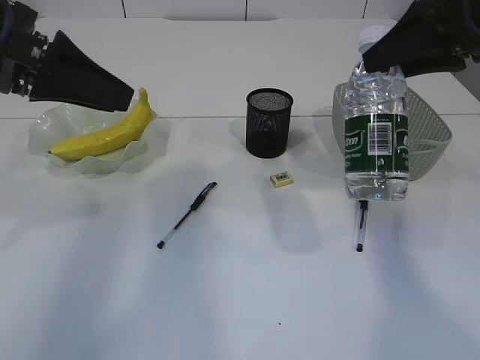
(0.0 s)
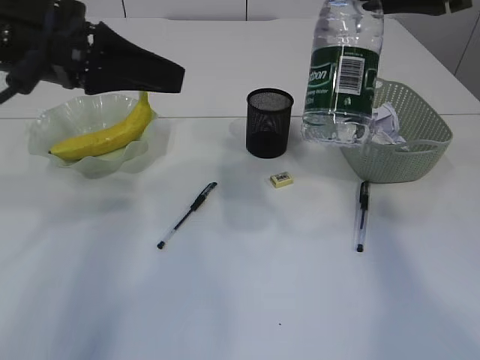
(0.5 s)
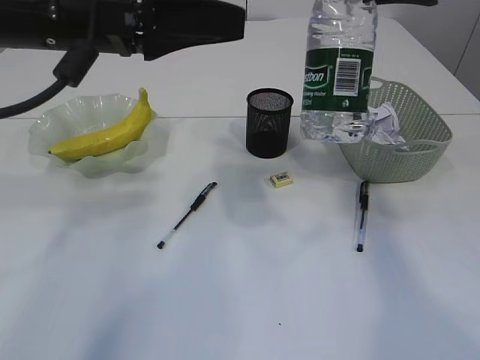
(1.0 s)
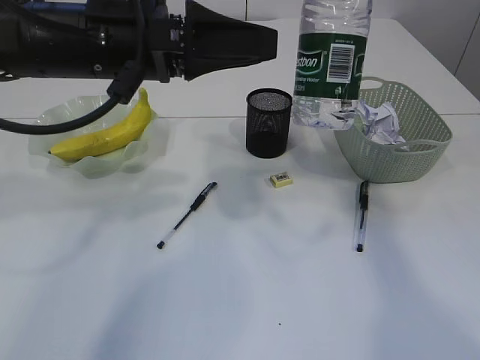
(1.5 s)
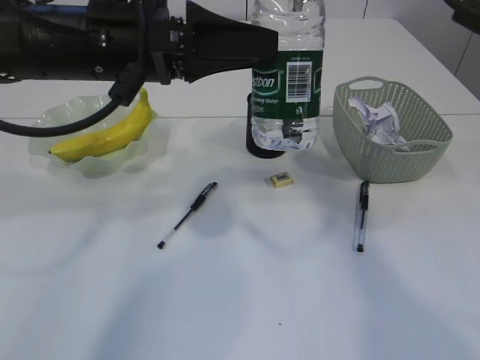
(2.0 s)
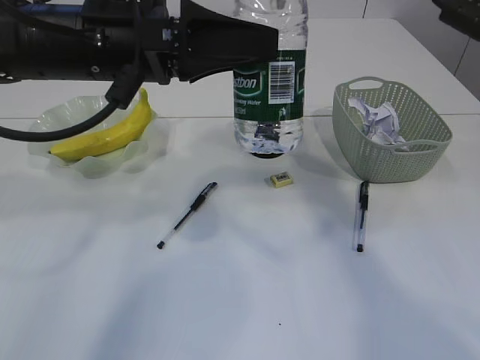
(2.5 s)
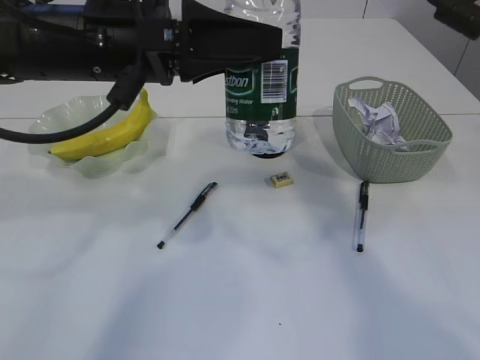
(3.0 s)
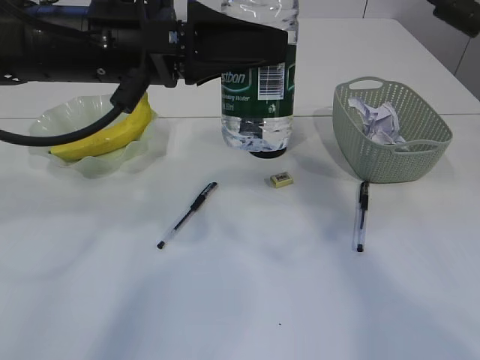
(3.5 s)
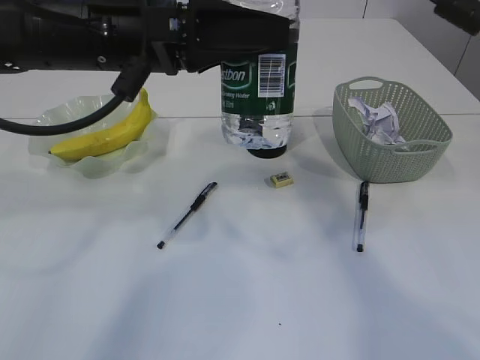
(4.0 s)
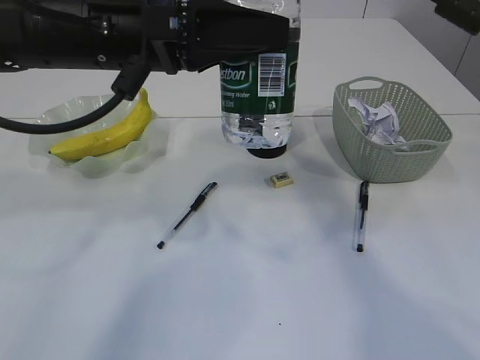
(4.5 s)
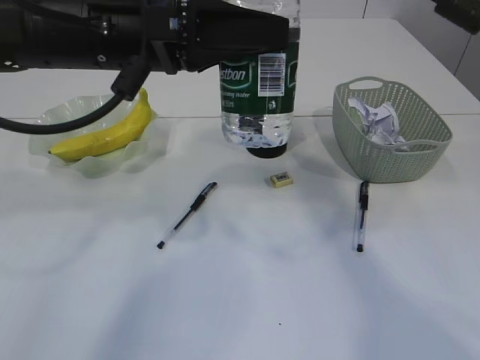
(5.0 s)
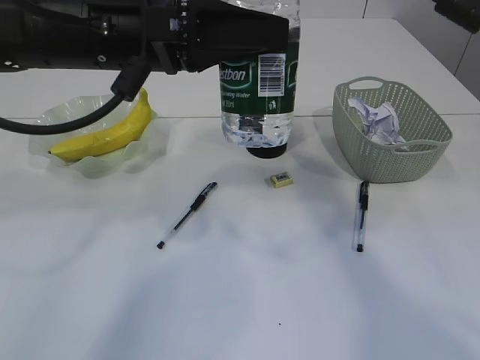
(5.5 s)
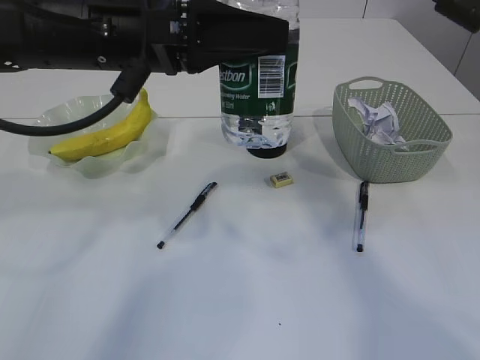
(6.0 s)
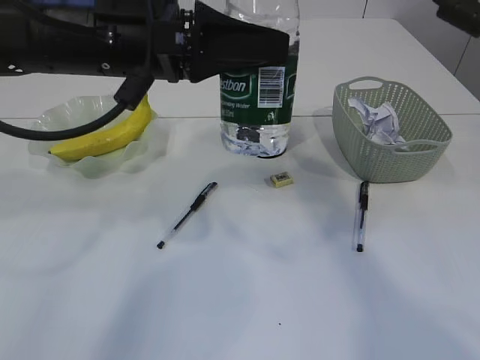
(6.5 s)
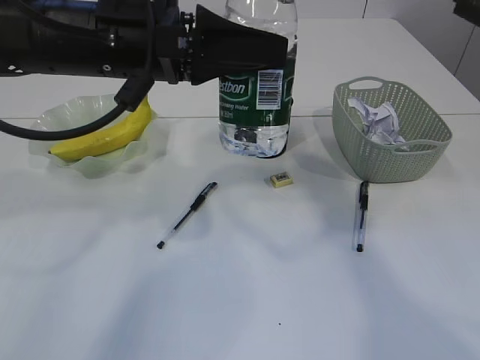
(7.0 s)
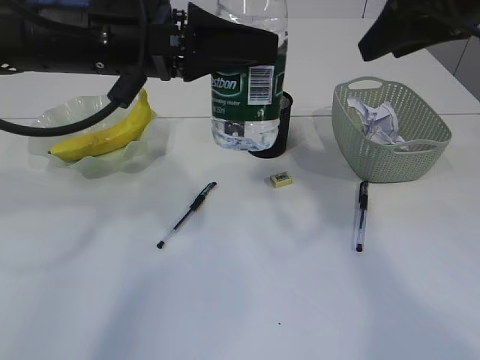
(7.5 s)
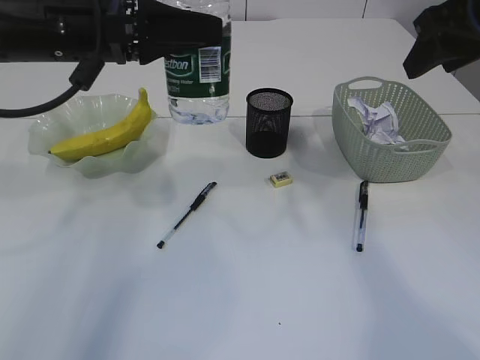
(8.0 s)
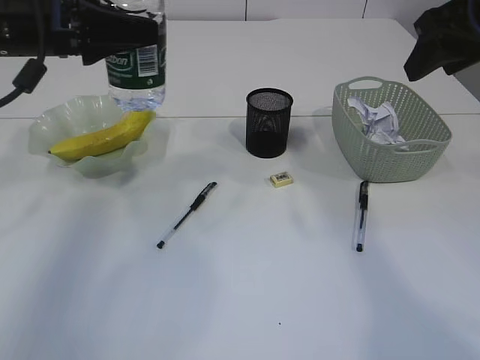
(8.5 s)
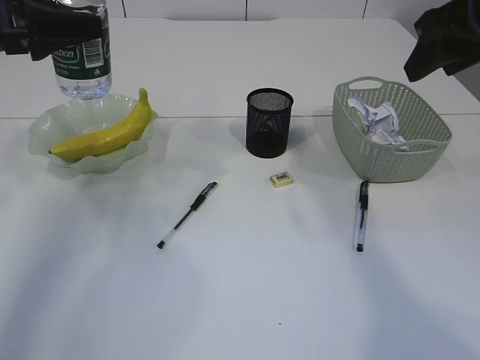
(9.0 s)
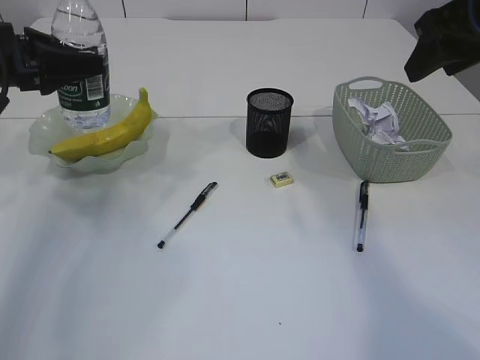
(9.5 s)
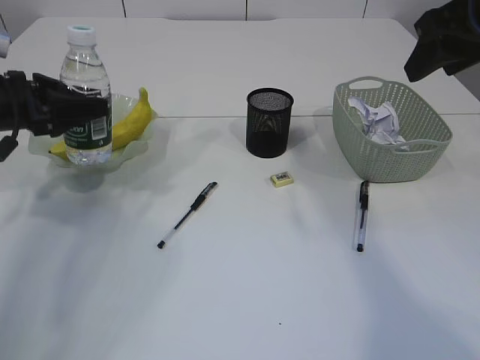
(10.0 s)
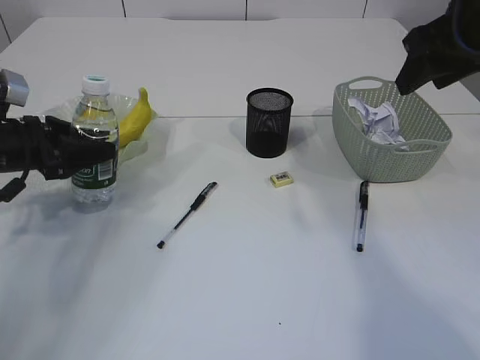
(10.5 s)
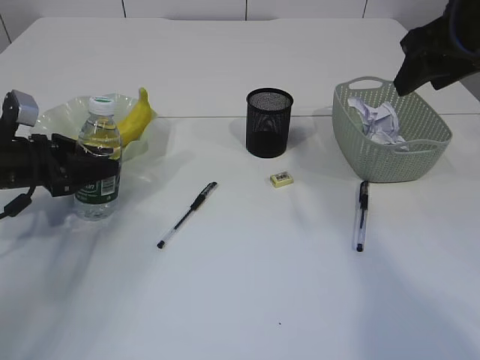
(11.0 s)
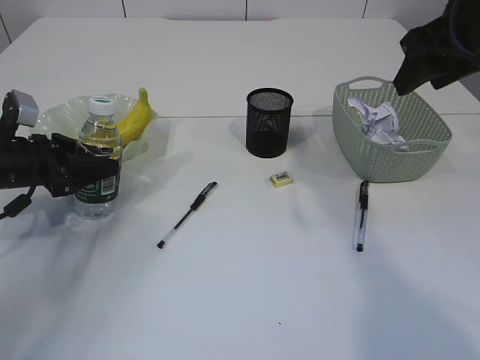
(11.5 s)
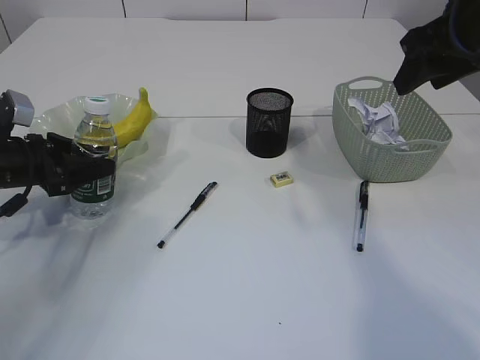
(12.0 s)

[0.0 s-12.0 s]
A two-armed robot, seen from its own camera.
Step, 0.0 to 7.0 s: transfer the bottle to the left arm.
0.0 to 2.0 s: The left gripper goes roughly 10 cm to the right. The right gripper heads to the left and upward, covering approximately 10 cm.
2.0 to 4.0 s: There are only small adjustments of the grippers.
4.0 to 6.0 s: Both grippers stay put.
6.0 to 8.0 s: The left gripper heads to the left, covering roughly 5 cm. The right gripper goes about 10 cm to the right.
8.0 to 10.0 s: The left gripper shifts about 20 cm to the left and downward.
10.0 to 12.0 s: The left gripper moves downward, some 10 cm.

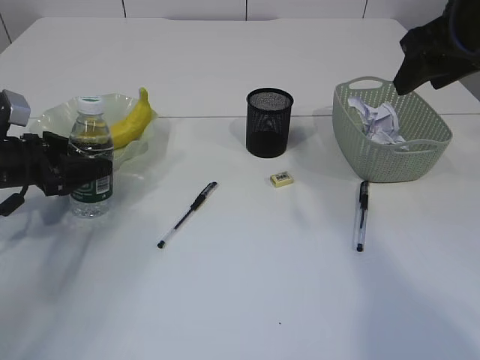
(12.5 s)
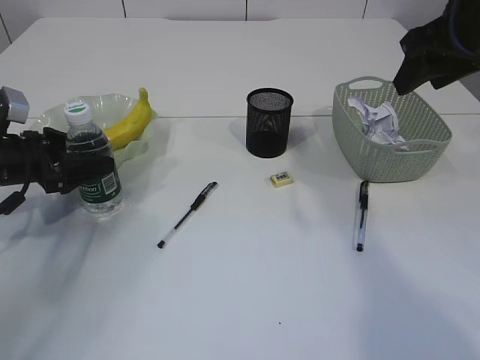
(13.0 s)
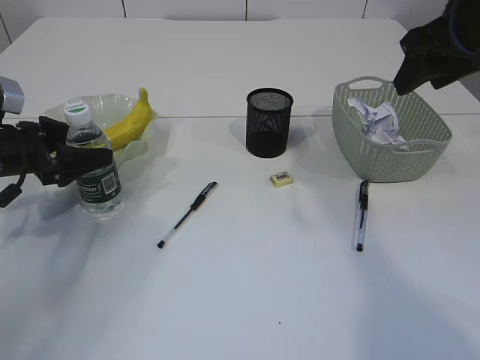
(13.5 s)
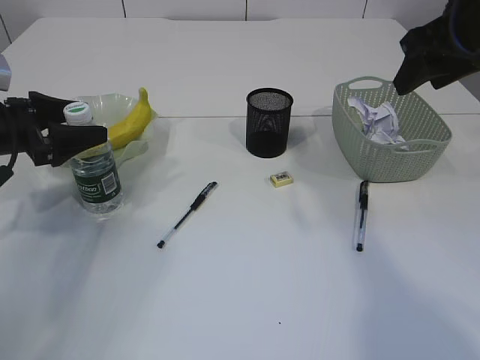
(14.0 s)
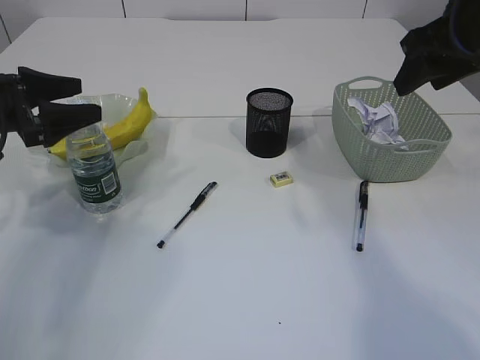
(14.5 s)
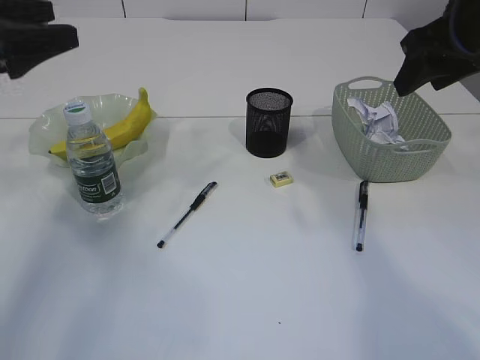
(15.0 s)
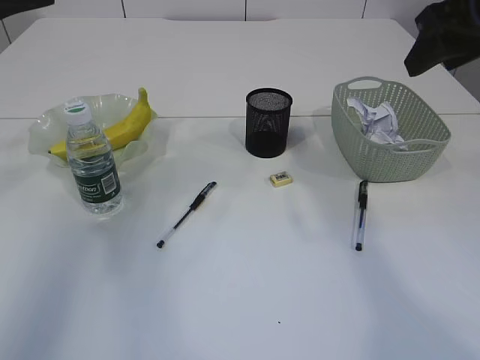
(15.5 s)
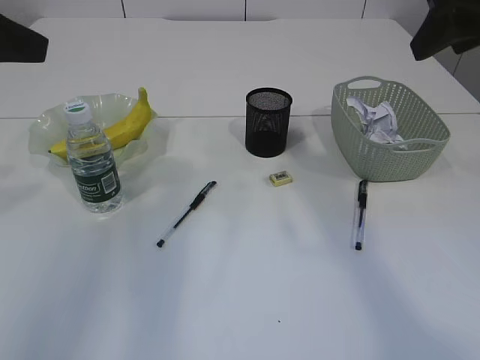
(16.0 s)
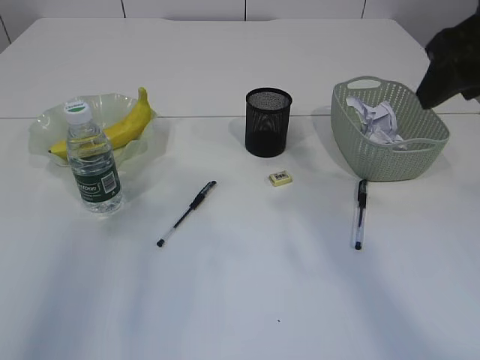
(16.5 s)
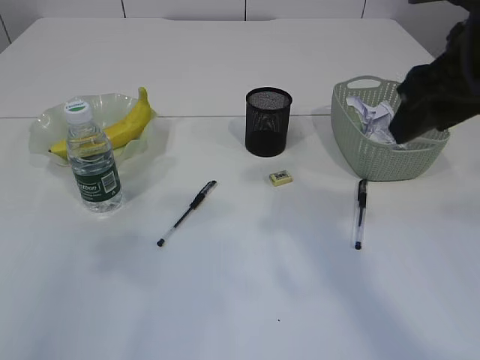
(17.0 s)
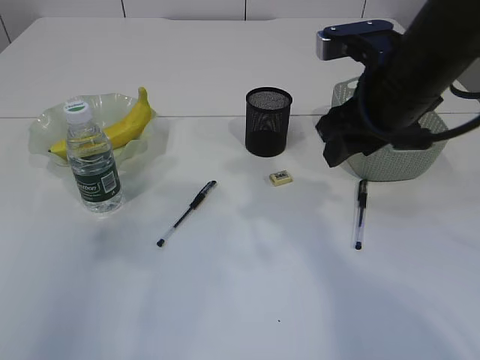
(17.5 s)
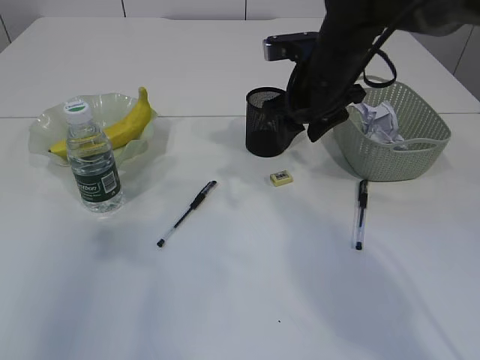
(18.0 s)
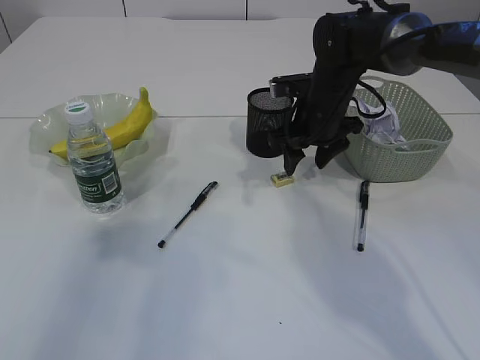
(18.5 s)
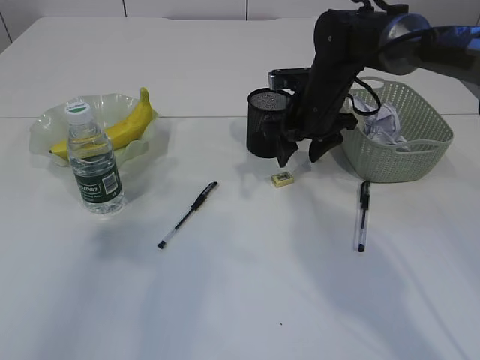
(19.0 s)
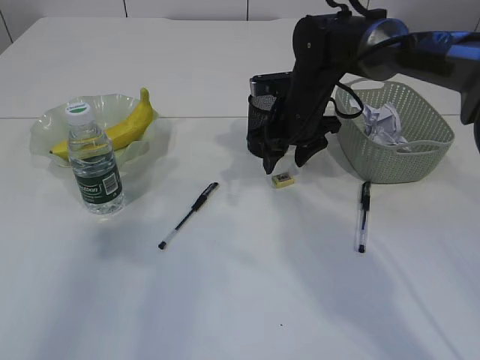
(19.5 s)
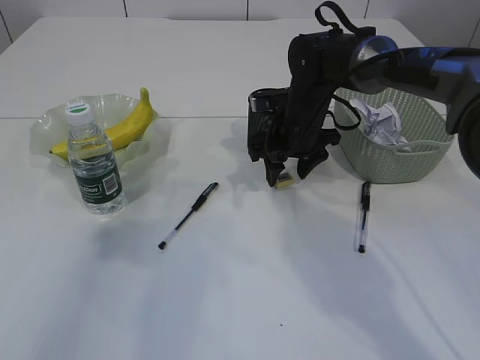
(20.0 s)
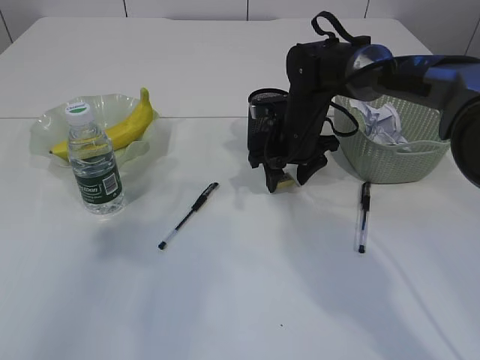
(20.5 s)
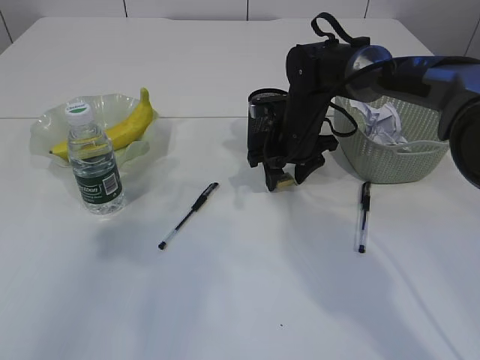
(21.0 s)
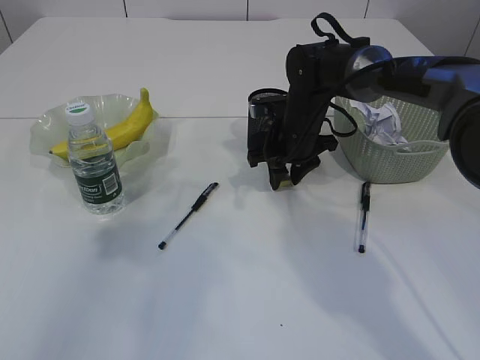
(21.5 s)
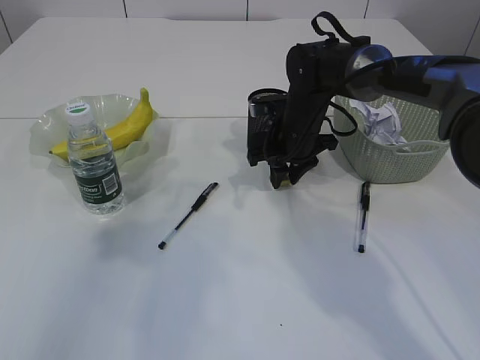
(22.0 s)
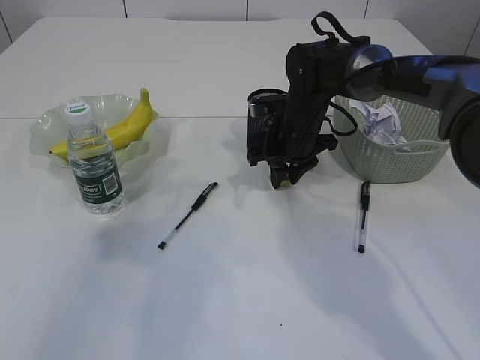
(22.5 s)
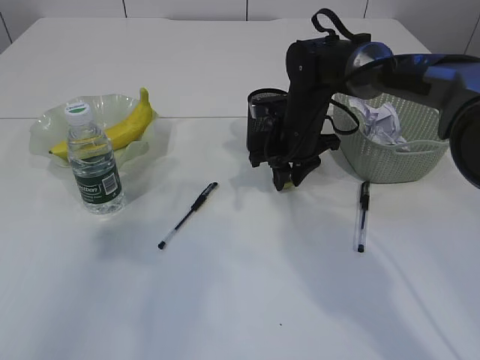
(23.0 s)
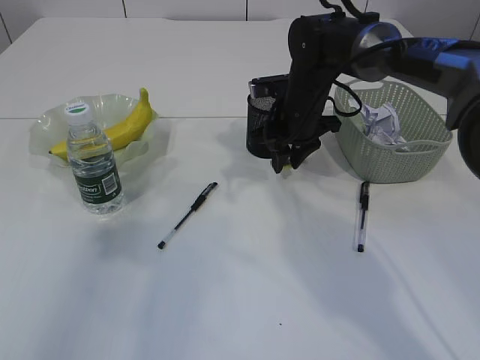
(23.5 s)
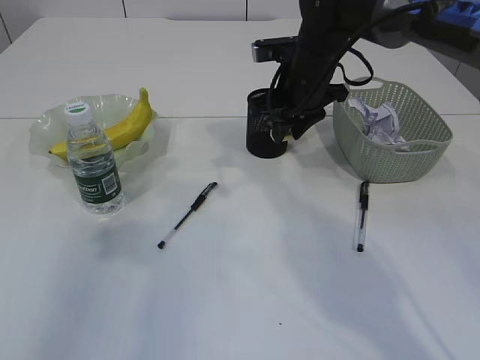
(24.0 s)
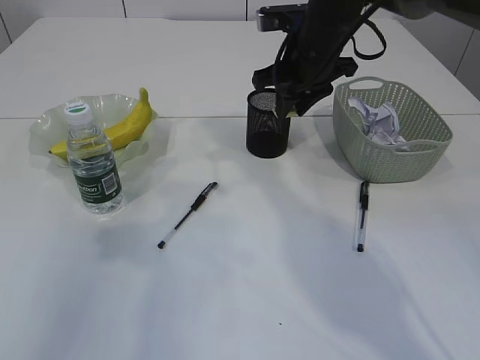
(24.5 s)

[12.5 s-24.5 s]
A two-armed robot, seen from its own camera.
Step, 12.5 to 14.5 s: Place the bottle.
Step, 15.0 to 23.5 s: Pick up the eraser.
12.5 to 14.5 s: The left gripper goes roughly 10 cm upward.
14.5 to 16.5 s: The right gripper goes some 5 cm backward. The left gripper heads backward and upward, covering some 25 cm.
16.5 to 18.5 s: The right gripper goes roughly 25 cm downward, forward and to the left.
18.5 to 20.5 s: The grippers move only a little.
20.5 to 22.5 s: The right gripper closes its fingers.
22.5 to 24.5 s: The right gripper goes some 10 cm upward.

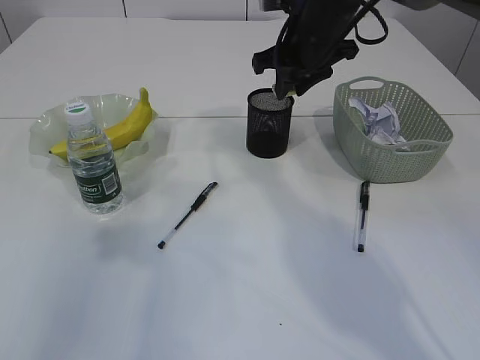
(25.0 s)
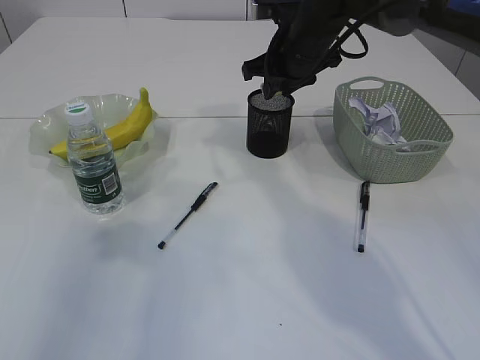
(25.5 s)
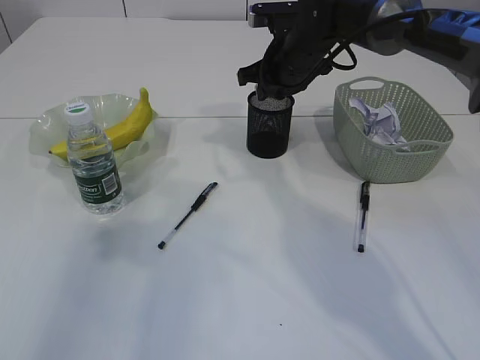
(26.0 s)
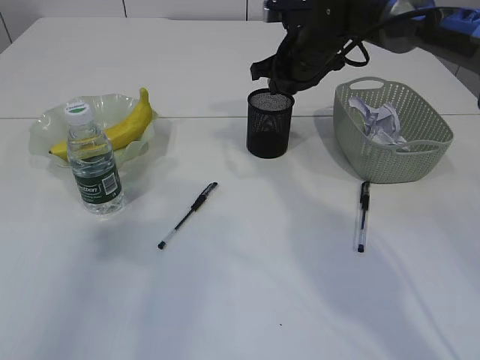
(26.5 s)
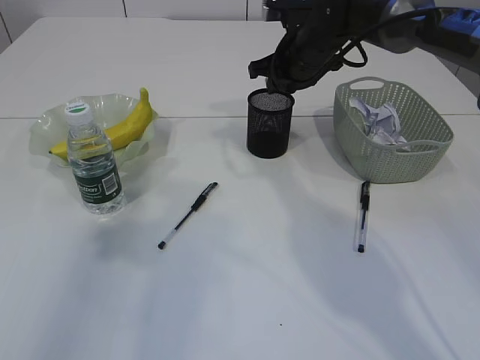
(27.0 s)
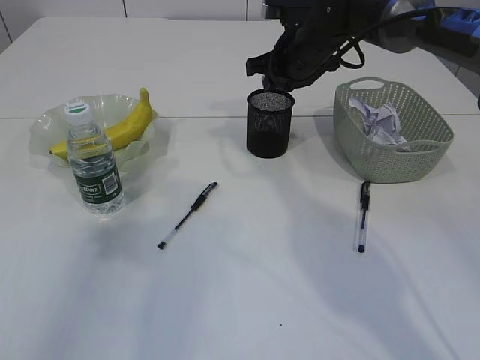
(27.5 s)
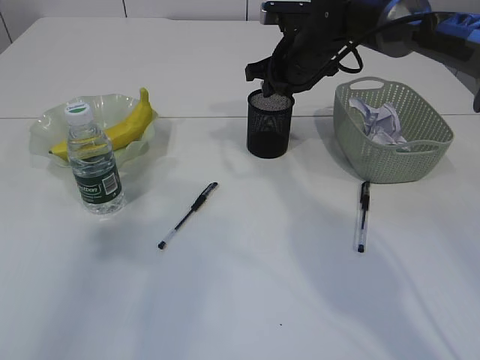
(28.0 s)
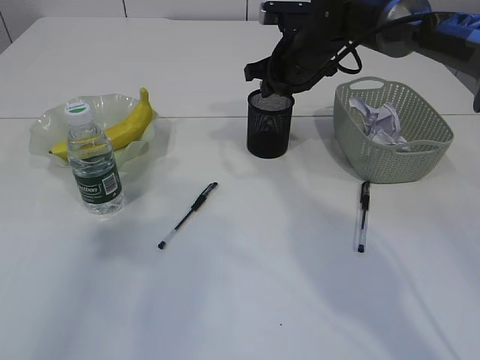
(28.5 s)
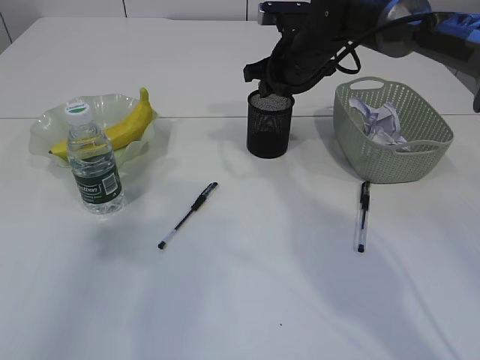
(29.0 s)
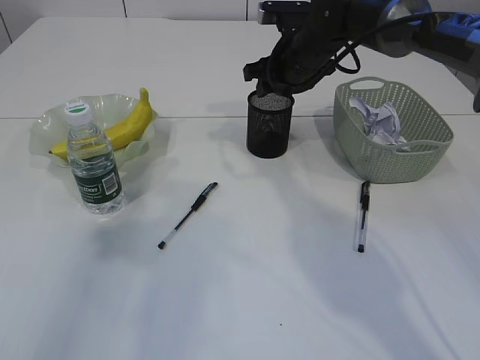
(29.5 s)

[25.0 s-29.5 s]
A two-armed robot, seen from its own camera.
25.0 to 27.0 s: The right gripper moves roughly 5 cm.
27.0 to 29.5 s: Both grippers stay put.
